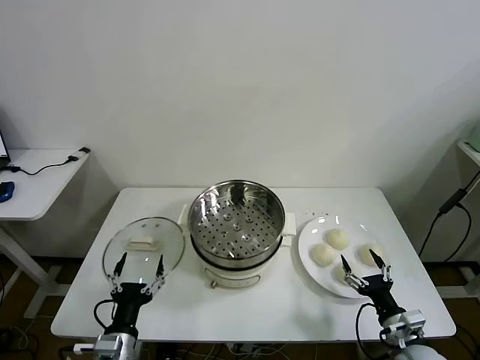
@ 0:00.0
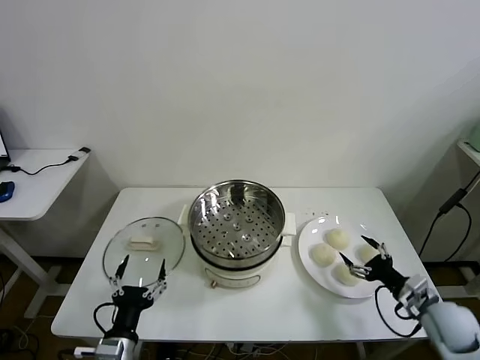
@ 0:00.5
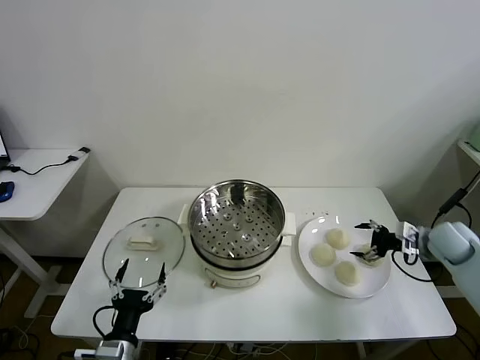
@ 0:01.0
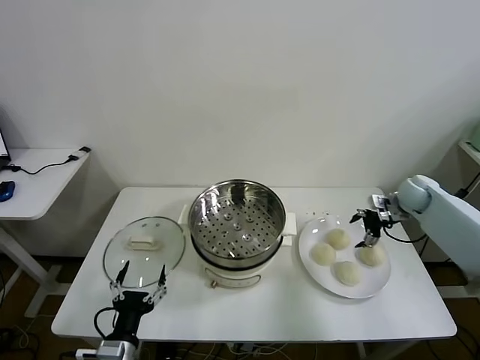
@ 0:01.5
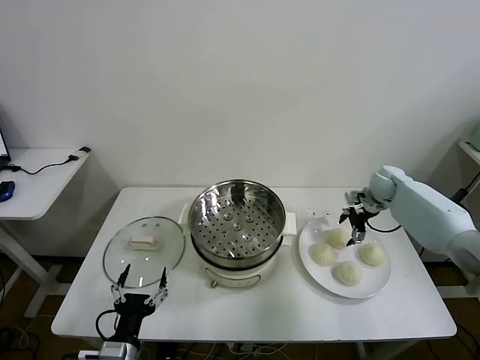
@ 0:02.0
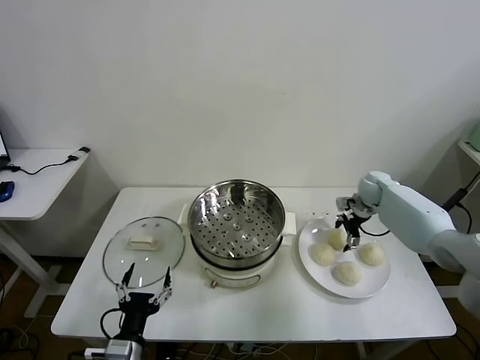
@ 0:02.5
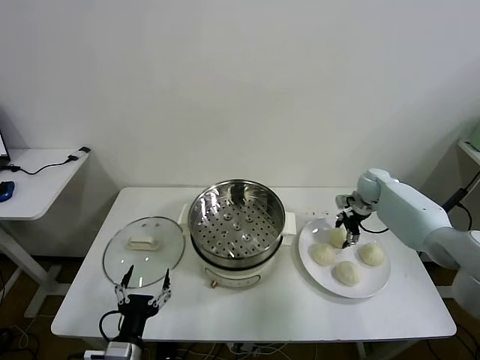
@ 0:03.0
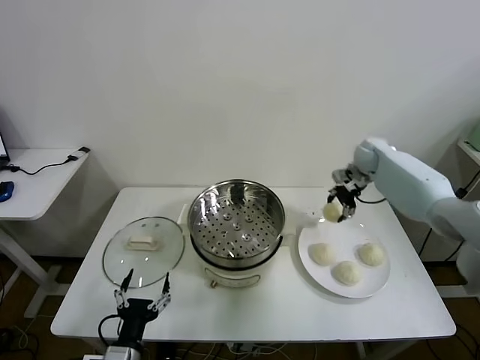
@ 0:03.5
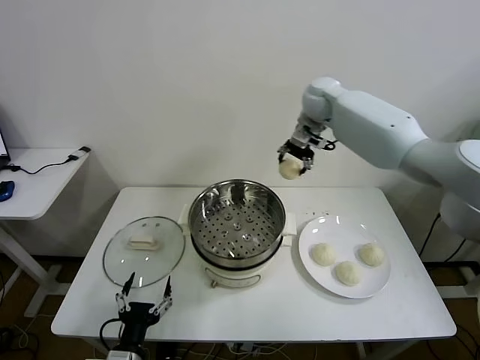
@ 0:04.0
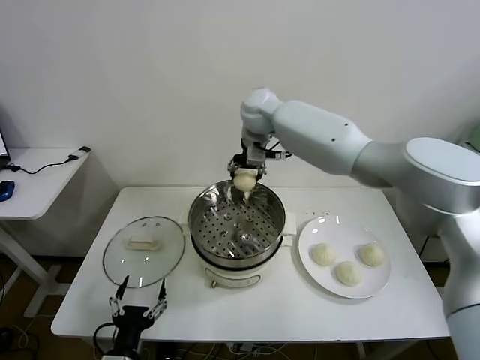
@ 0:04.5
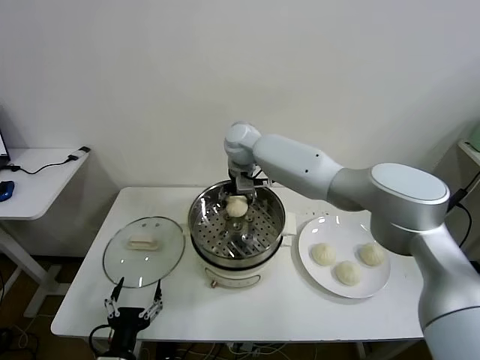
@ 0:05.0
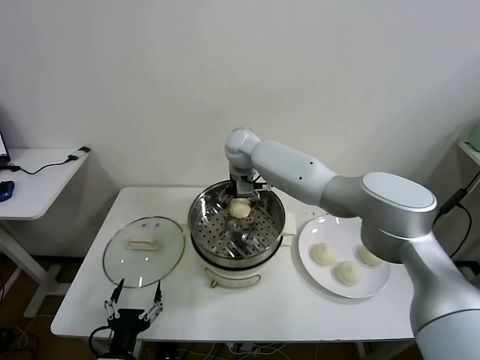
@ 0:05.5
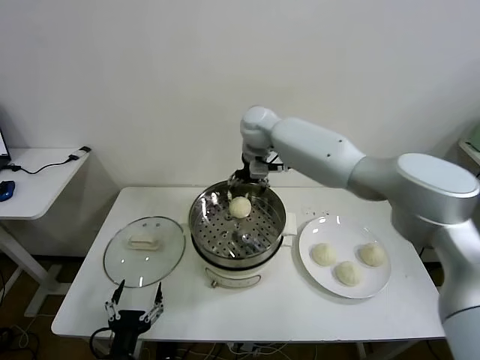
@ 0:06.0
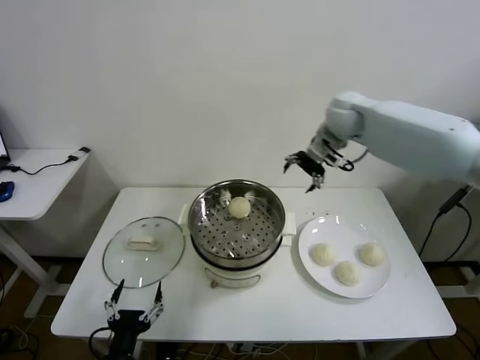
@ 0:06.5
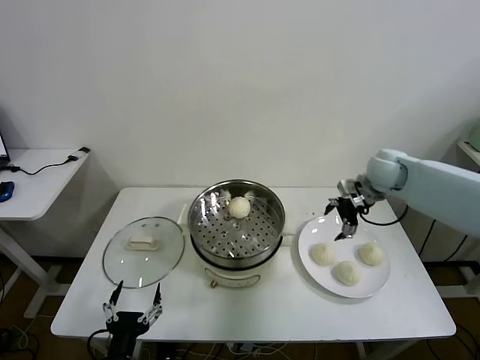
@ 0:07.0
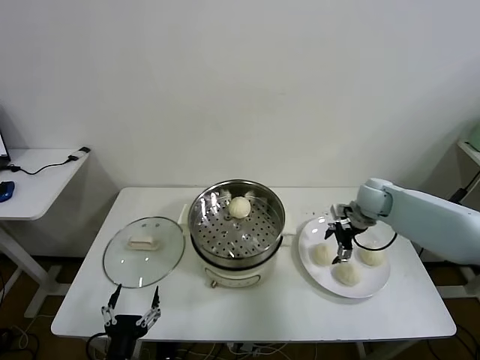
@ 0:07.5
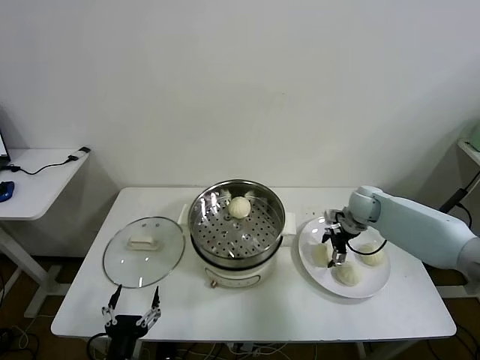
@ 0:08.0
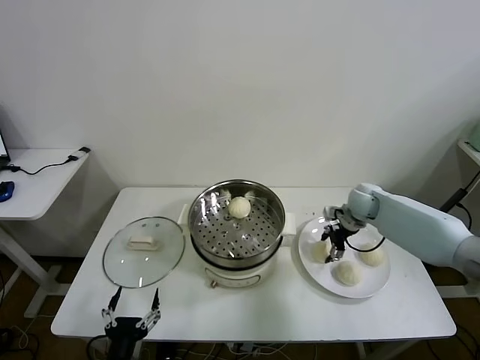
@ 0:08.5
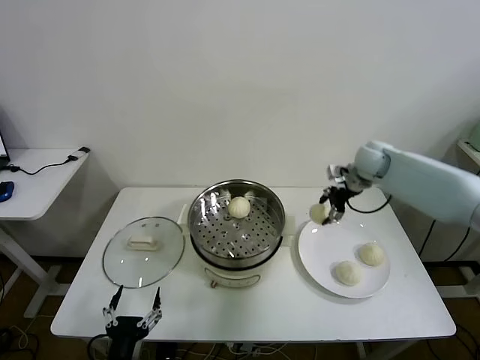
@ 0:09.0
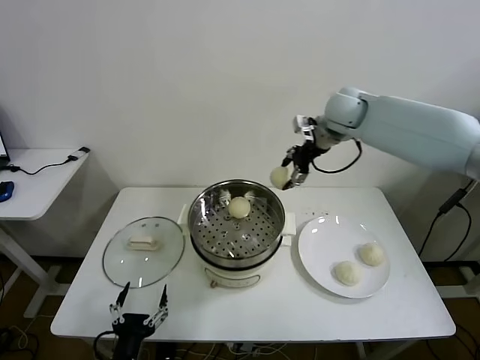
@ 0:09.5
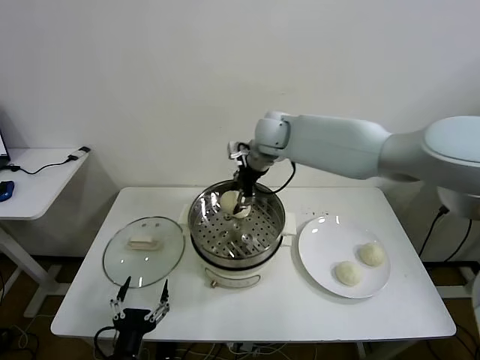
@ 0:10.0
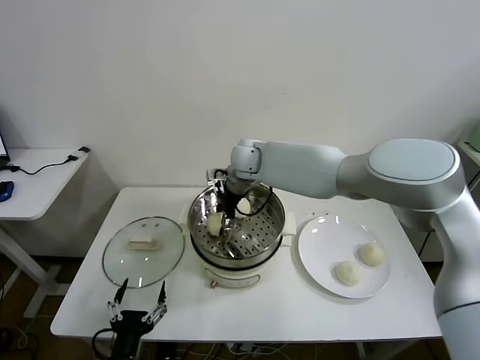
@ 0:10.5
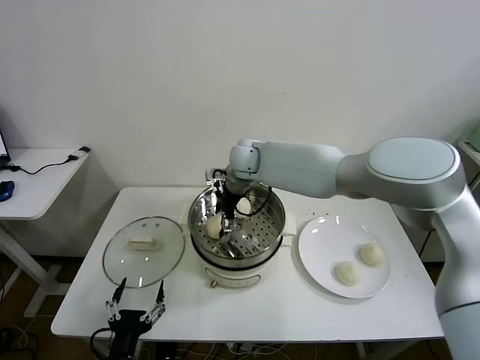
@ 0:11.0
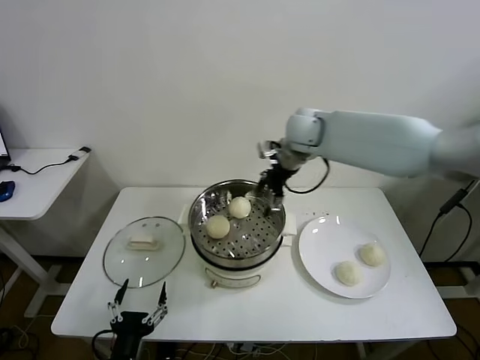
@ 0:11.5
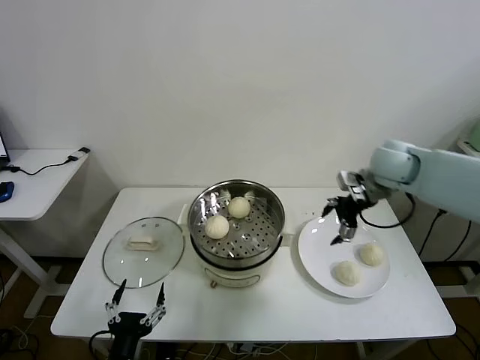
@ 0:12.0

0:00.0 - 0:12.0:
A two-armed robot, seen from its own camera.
Task of the whole recording: take steamed baozi put them in steamer then cover it.
Step, 0:00.0 - 0:02.5: Grasp the baozi in the plate with right gripper.
Step, 0:03.5 - 0:05.5: Place the baozi on the steamer with right gripper.
Step, 0:06.0 - 0:08.5: Grasp the baozi in the plate with right gripper.
Step, 0:09.0 - 0:10.5: Place the baozi on the steamer with right gripper.
0:02.0 - 0:04.0: The right gripper is displaced to the left and upward by some 35 cm, and closes.
0:04.0 - 0:06.0: The right gripper heads to the left, covering roughly 10 cm, and opens up.
0:06.0 - 0:08.0: The right gripper heads to the right and downward, covering about 35 cm.
0:08.0 - 0:10.0: The right gripper travels to the left and upward by roughly 35 cm, and closes.
0:10.0 - 0:12.0: The right gripper heads to the right, covering some 30 cm, and opens its fingers.

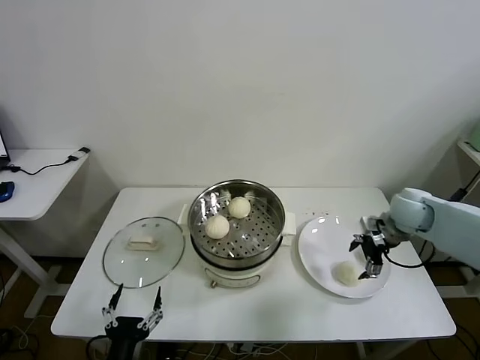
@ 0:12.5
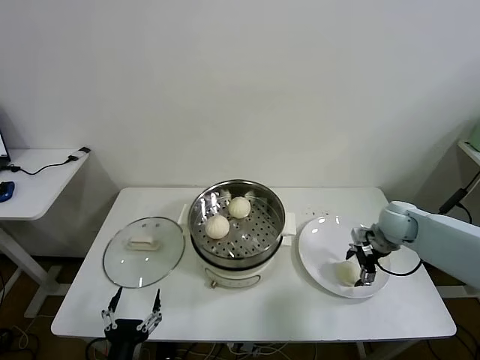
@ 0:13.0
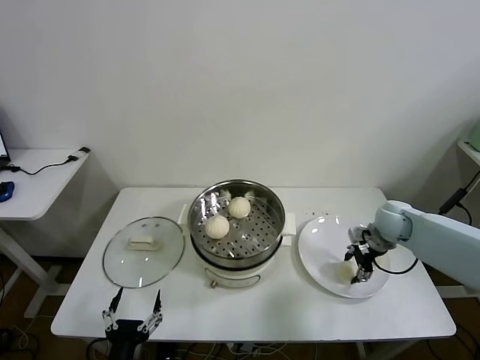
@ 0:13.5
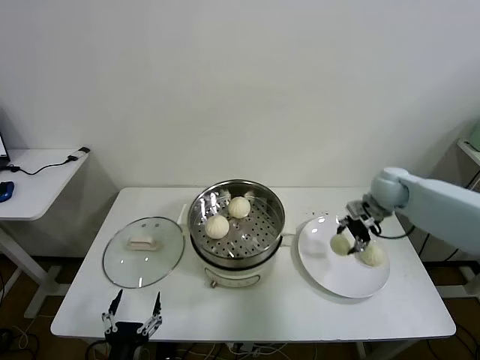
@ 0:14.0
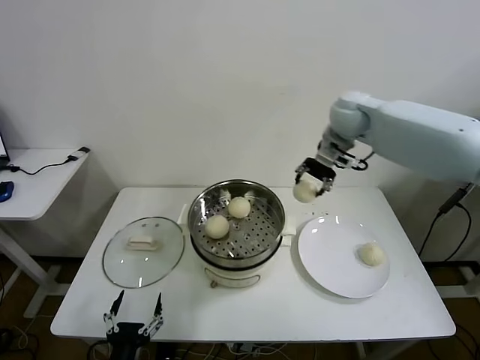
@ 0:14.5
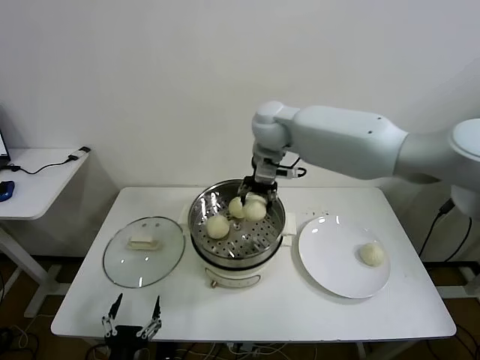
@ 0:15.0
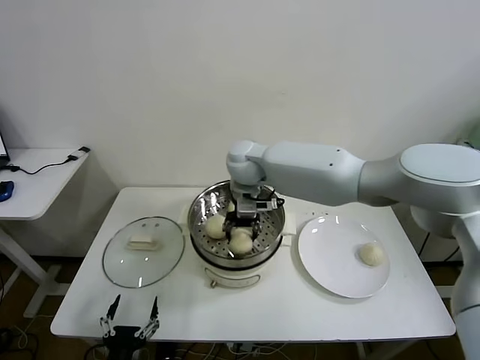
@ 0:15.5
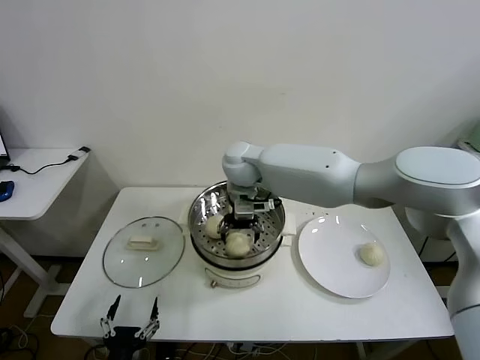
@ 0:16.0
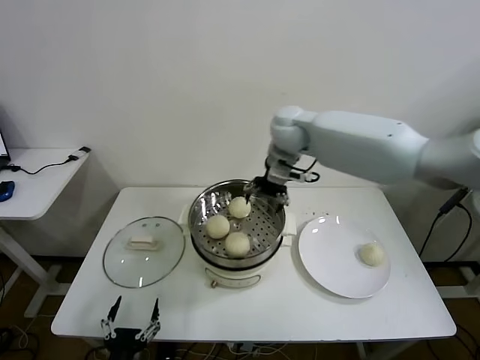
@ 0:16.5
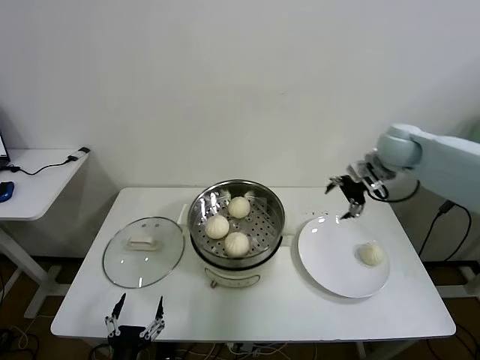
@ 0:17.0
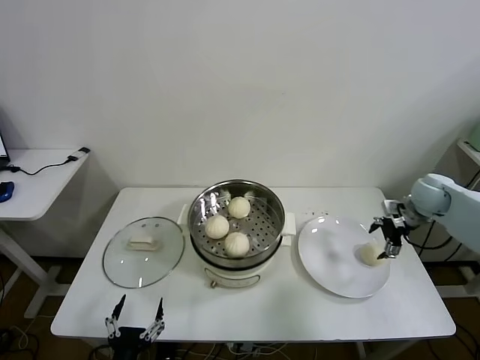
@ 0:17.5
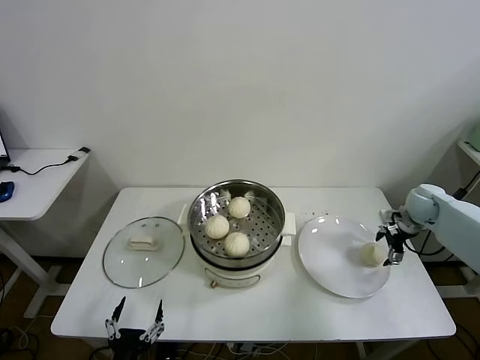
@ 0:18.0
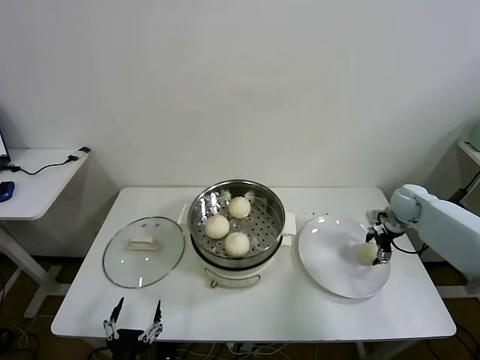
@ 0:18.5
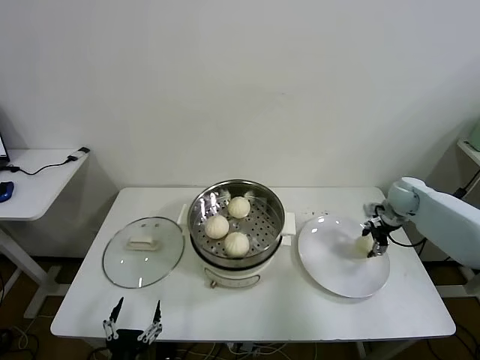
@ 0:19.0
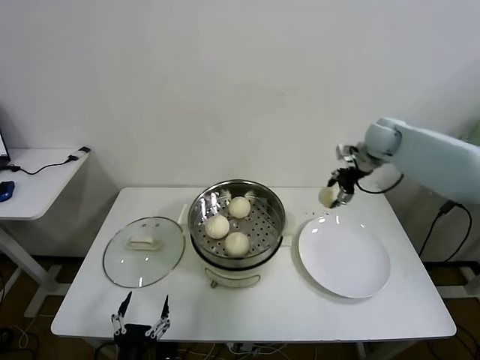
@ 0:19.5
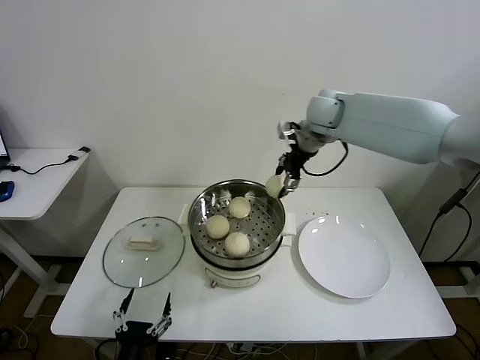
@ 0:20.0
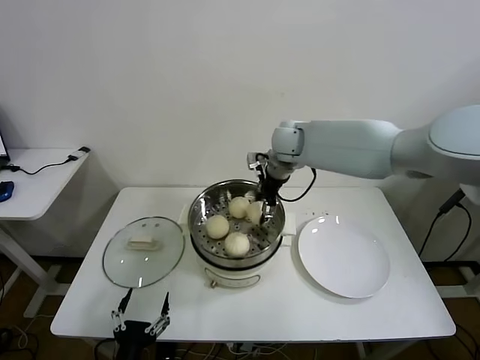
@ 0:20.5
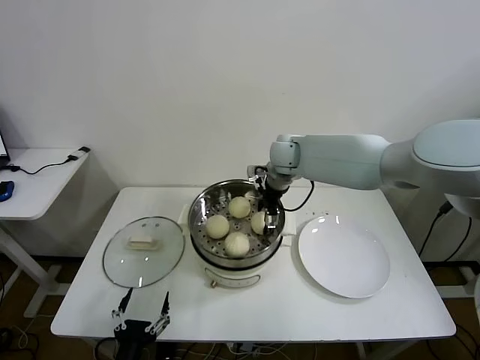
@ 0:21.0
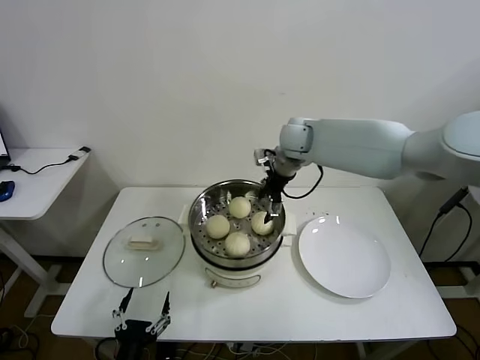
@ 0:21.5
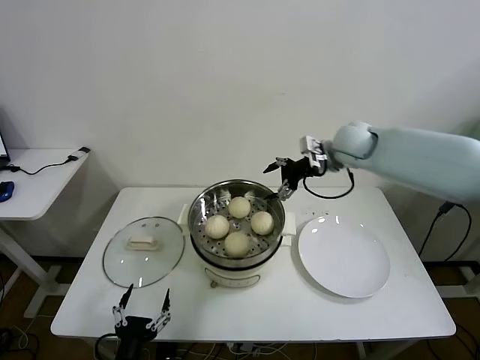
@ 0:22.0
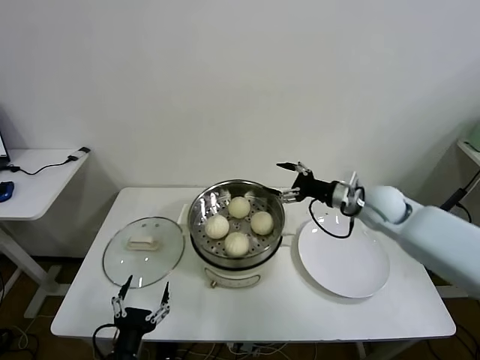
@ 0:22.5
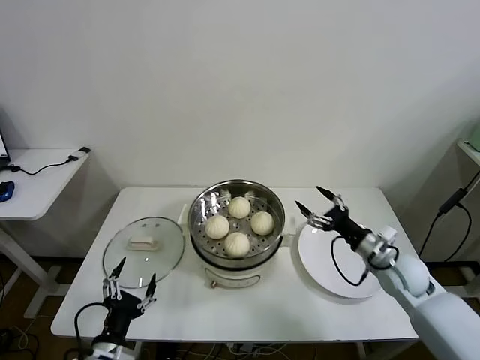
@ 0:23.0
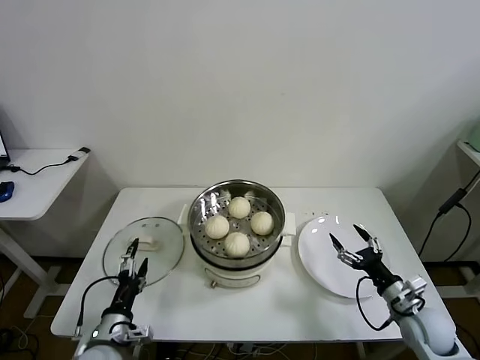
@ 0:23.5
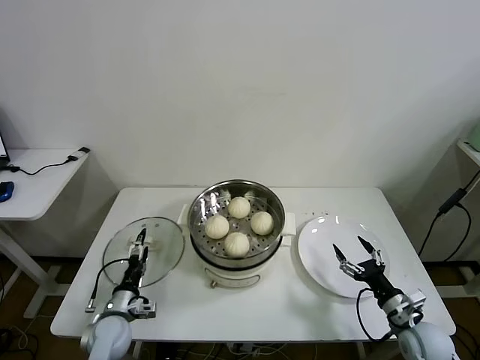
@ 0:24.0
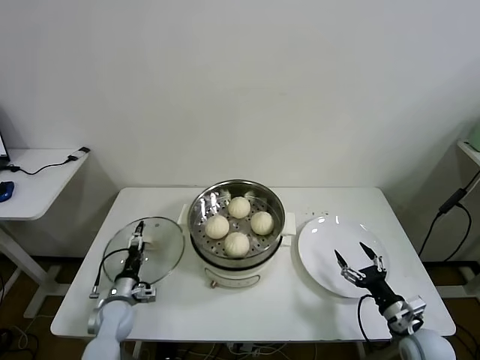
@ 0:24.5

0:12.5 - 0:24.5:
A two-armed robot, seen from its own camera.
Task of the whole recording: take steamed baozi put them in steamer then cover it.
Step, 0:14.0 - 0:16.0: Place the baozi on the steamer with right gripper.
Step, 0:16.5 - 0:18.5: Grasp the baozi in the plate with right gripper.
Step, 0:19.0 - 0:21.0: Place the baozi on the steamer with right gripper.
0:12.5 - 0:14.5: The right gripper travels upward, to the left and forward by approximately 30 cm, and closes.
0:14.5 - 0:16.5: The right gripper moves to the left, about 10 cm, and opens up.
0:16.5 - 0:18.5: The right gripper shifts about 40 cm to the right and downward.
0:18.5 - 0:20.5: The right gripper shifts roughly 35 cm to the left and upward, and closes.
0:20.5 - 0:22.5: The right gripper goes roughly 25 cm to the right, backward and downward, and opens its fingers.
0:22.5 - 0:24.5: The left gripper goes roughly 25 cm forward, downward and to the left; the right gripper travels backward and downward by about 30 cm.

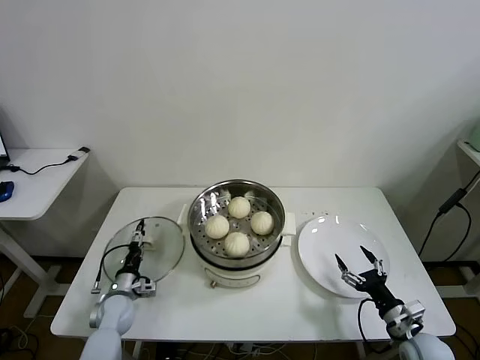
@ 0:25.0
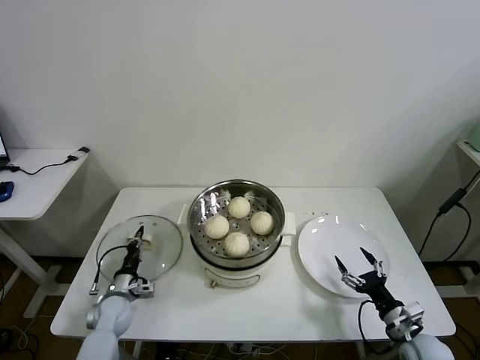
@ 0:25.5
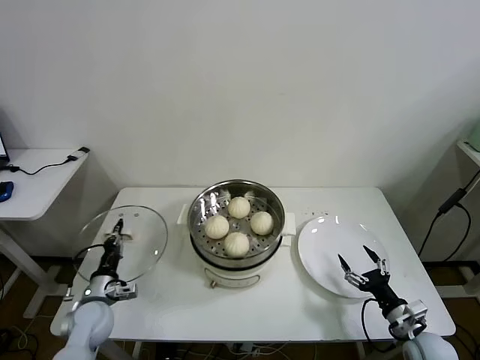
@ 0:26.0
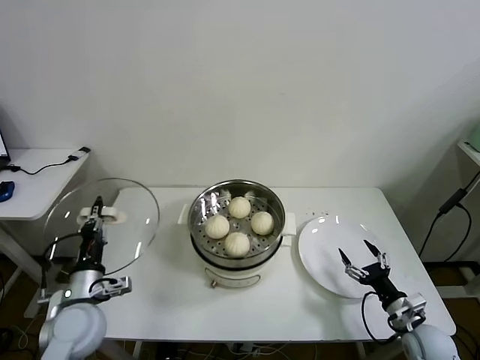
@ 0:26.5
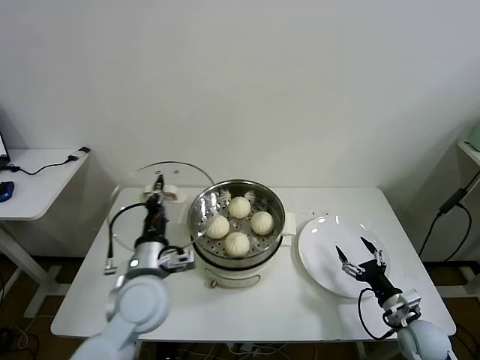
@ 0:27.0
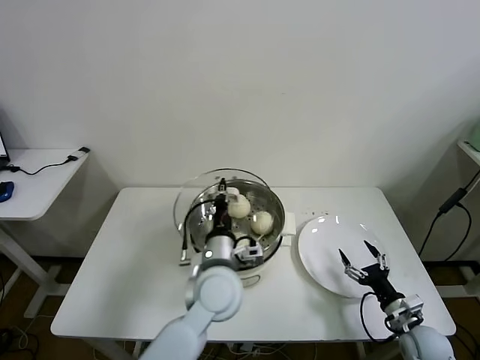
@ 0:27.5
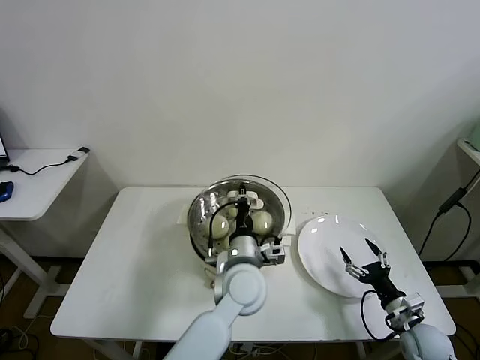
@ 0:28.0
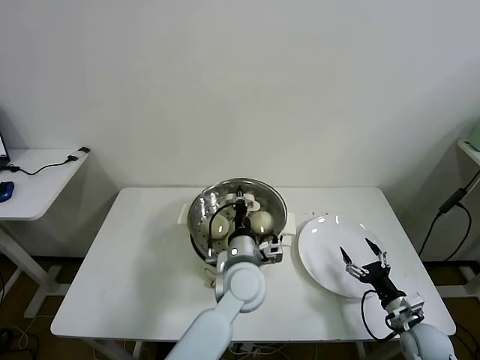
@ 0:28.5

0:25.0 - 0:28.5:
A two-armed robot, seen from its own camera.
Task of the whole recording: take steamed baozi put them in steamer then cover it.
0:25.0 - 0:27.0: The left gripper goes about 30 cm upward and to the right, and closes its fingers.
0:27.0 - 0:28.5: The left gripper travels to the right by some 20 cm.
